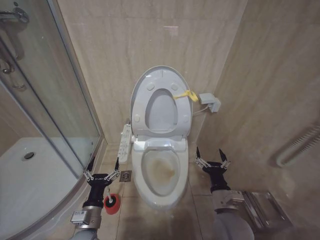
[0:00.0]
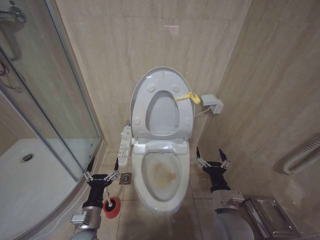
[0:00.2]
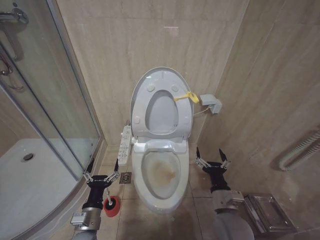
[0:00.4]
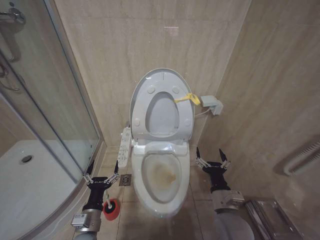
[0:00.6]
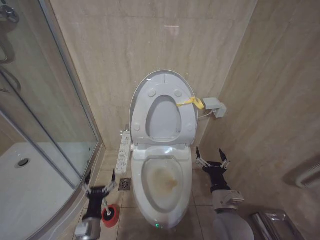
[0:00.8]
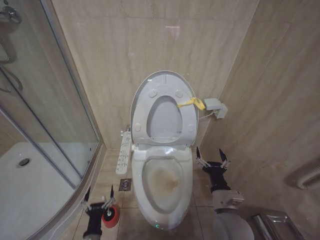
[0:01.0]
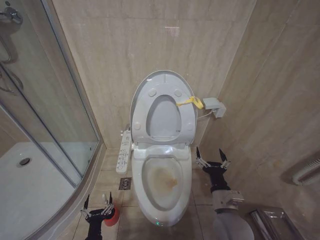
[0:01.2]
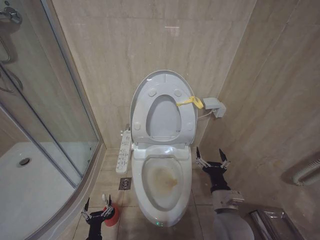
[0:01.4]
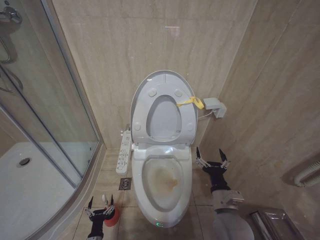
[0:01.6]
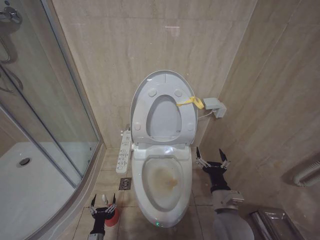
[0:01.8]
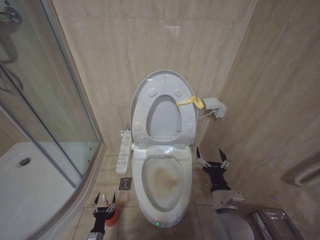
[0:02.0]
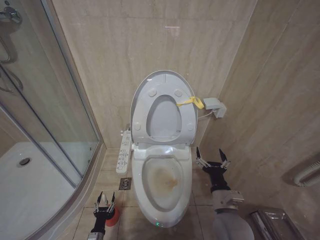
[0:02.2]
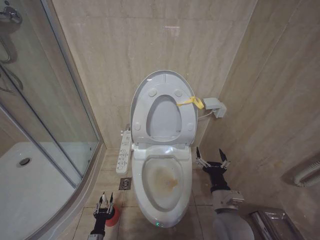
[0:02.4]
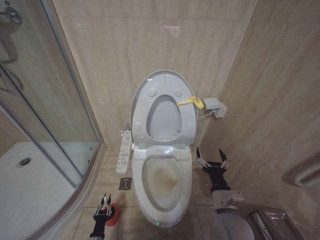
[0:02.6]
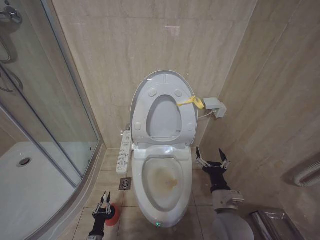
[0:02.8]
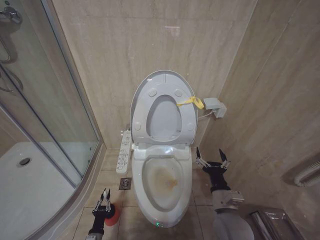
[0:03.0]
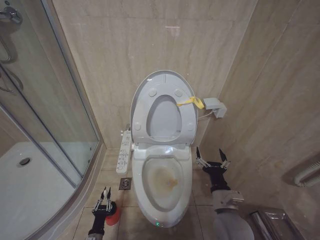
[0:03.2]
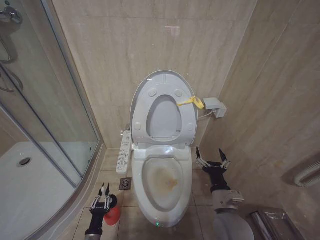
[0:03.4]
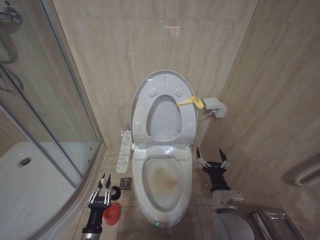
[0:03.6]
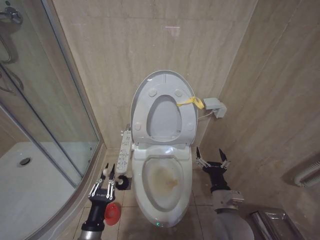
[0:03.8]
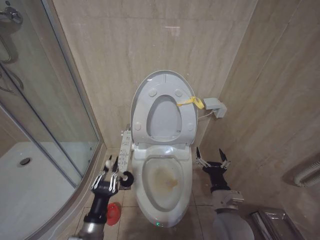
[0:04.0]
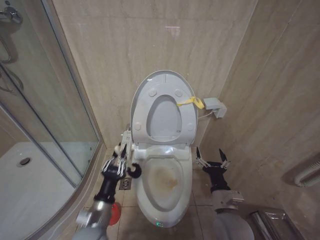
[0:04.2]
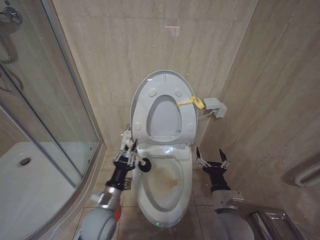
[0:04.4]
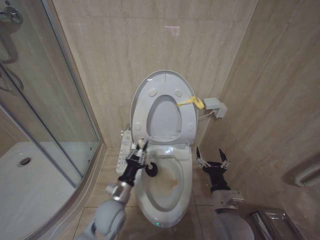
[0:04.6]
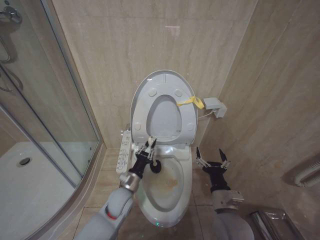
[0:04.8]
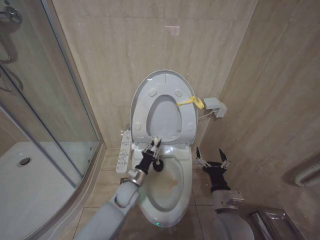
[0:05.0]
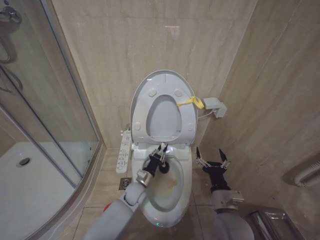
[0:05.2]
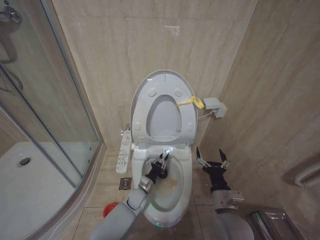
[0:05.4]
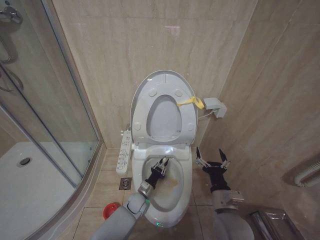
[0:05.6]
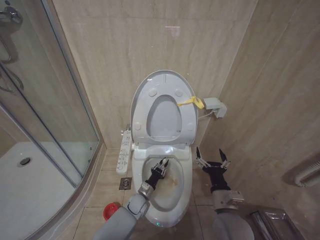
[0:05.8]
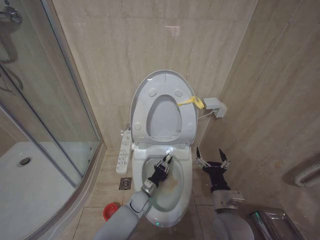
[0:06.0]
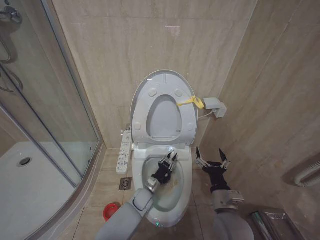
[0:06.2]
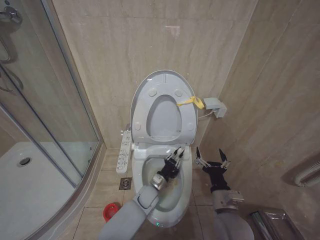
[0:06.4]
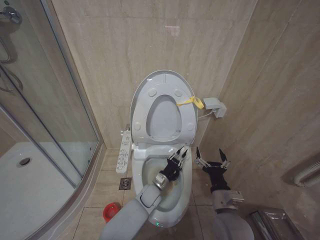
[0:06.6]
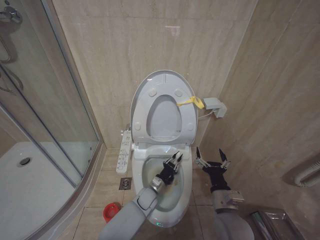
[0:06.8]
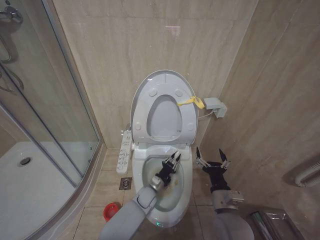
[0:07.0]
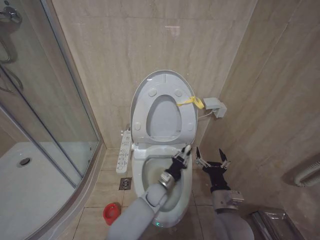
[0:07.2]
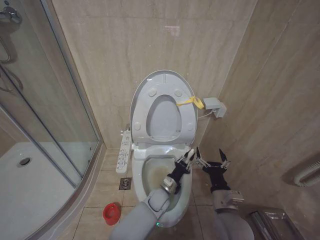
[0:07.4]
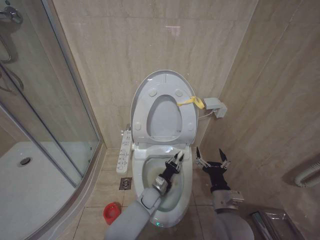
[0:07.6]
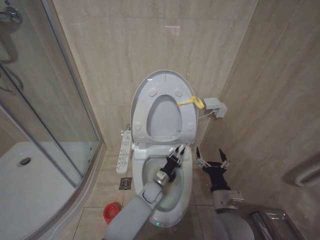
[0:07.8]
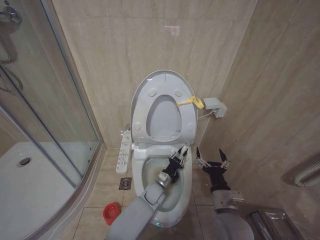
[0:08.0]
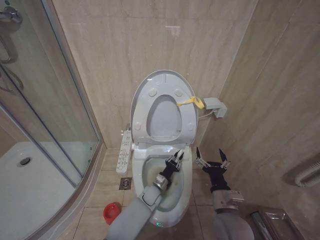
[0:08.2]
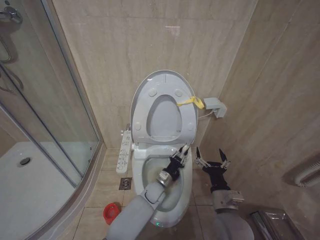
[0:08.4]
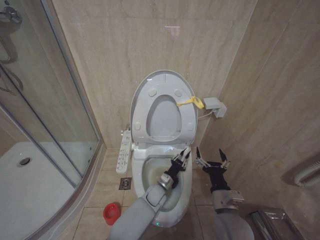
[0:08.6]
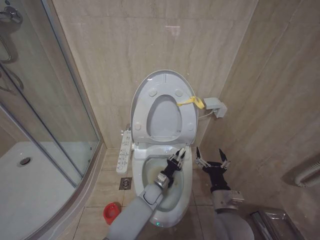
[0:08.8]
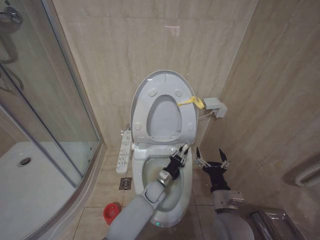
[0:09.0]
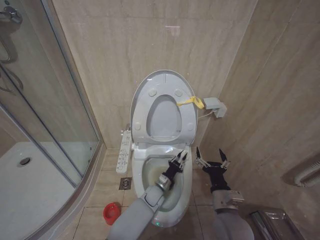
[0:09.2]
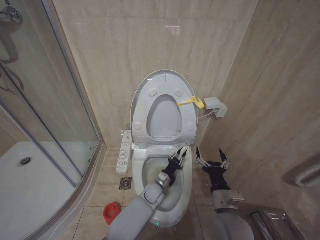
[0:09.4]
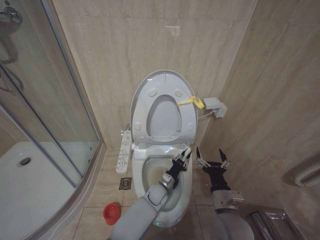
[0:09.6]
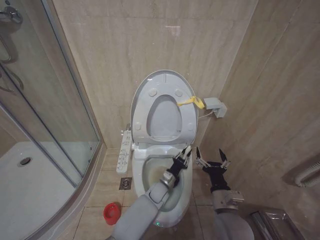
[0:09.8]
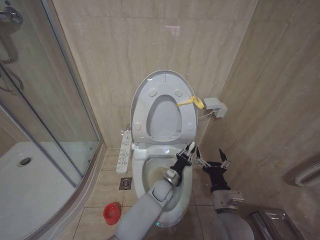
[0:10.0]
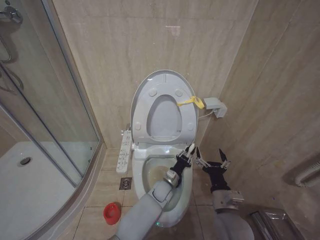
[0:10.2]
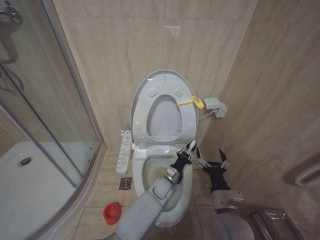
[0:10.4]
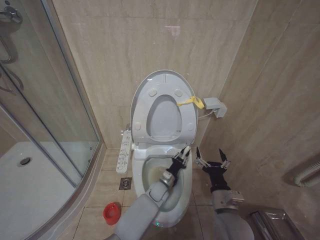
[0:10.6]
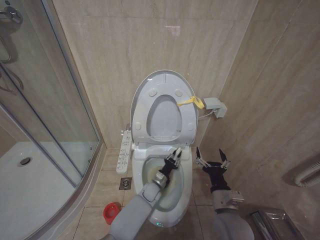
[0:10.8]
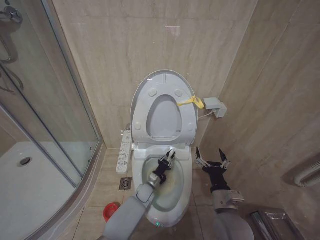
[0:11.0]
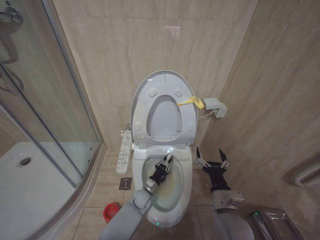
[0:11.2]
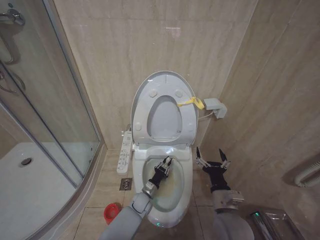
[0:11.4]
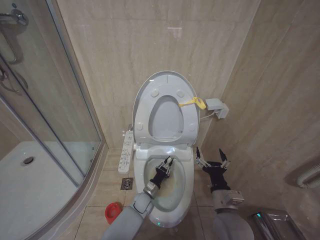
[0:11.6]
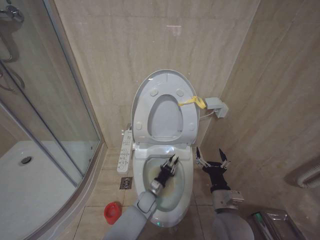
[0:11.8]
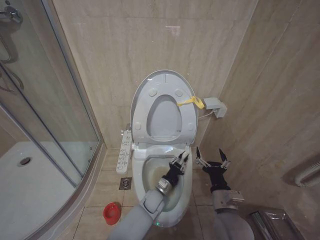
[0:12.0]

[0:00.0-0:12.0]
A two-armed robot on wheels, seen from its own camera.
Task of the whole recording: Open the toilet lid, clean the toilet bowl with a toilet brush, close the toilet lid, and flush.
0:00.0 to 0:01.6: The left gripper moves downward, some 25 cm.
0:03.0 to 0:04.4: The left gripper heads upward, covering about 30 cm.
0:04.4 to 0:06.0: The left gripper travels downward, forward and to the right by about 25 cm.
0:06.0 to 0:07.6: The left gripper moves to the right, some 5 cm.
0:07.6 to 0:09.0: There are only small adjustments of the grippers.
0:09.0 to 0:10.4: There are only small adjustments of the grippers.
0:10.4 to 0:12.0: The left gripper heads to the left, covering some 5 cm.

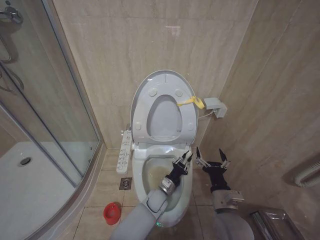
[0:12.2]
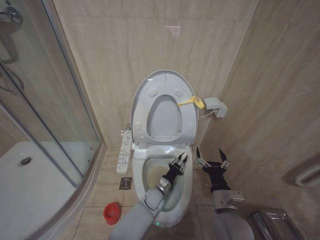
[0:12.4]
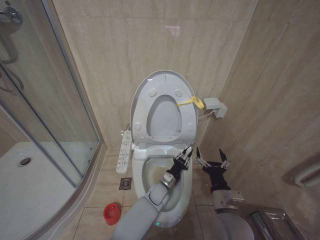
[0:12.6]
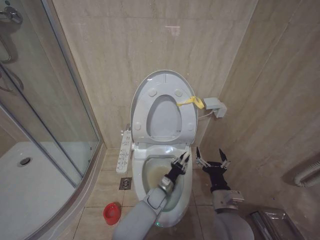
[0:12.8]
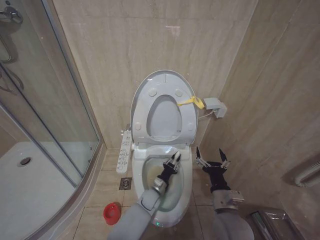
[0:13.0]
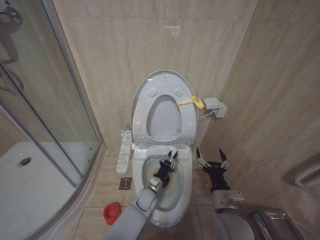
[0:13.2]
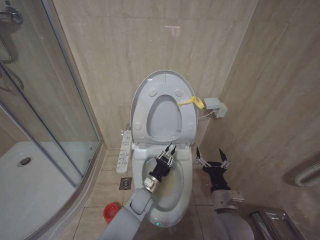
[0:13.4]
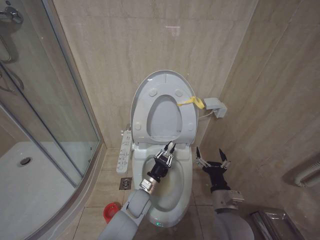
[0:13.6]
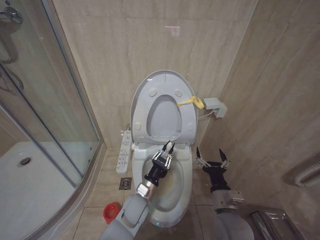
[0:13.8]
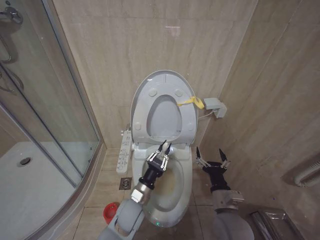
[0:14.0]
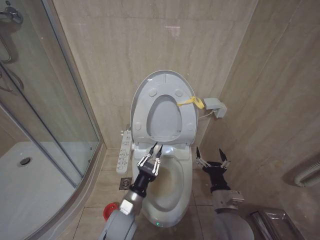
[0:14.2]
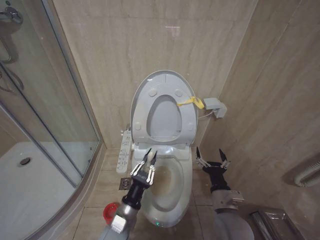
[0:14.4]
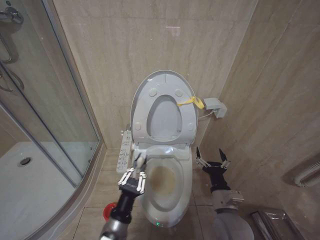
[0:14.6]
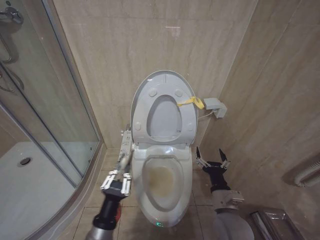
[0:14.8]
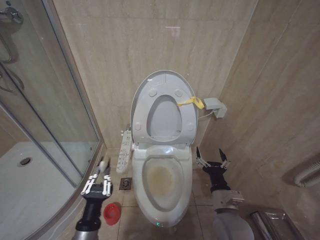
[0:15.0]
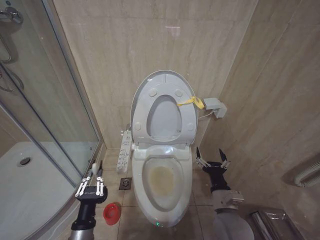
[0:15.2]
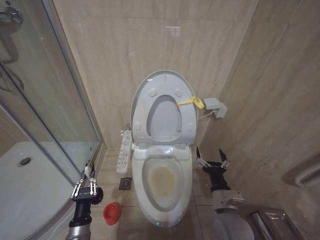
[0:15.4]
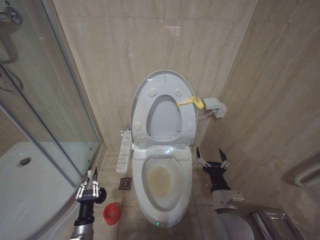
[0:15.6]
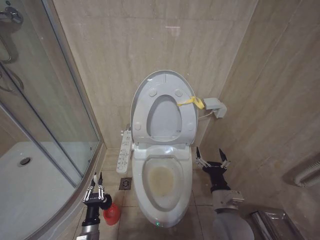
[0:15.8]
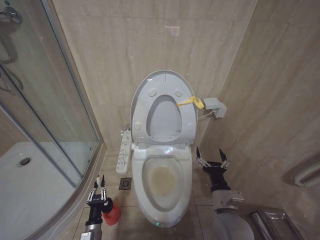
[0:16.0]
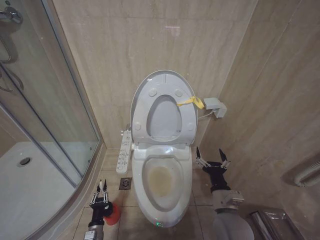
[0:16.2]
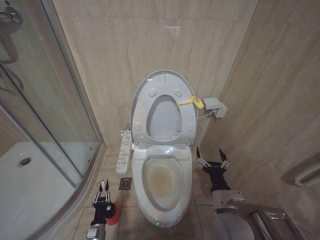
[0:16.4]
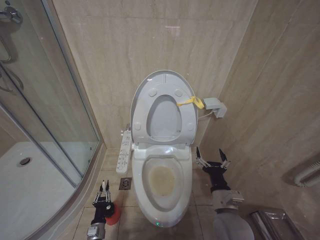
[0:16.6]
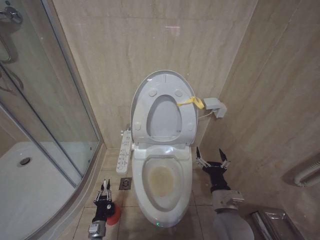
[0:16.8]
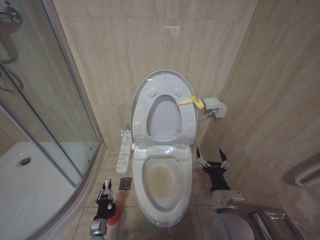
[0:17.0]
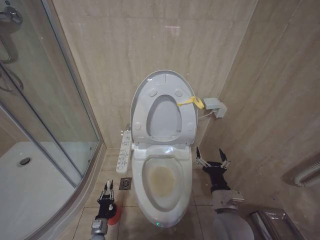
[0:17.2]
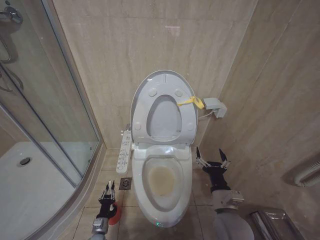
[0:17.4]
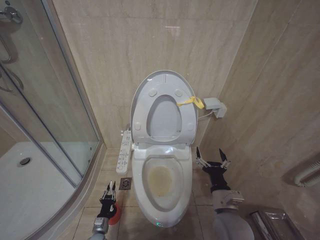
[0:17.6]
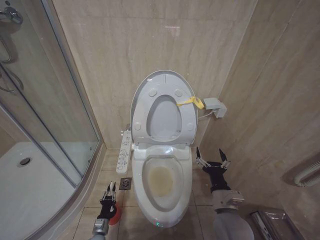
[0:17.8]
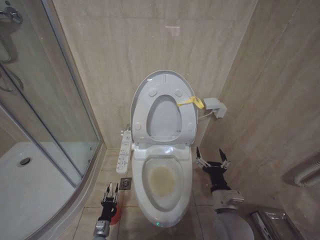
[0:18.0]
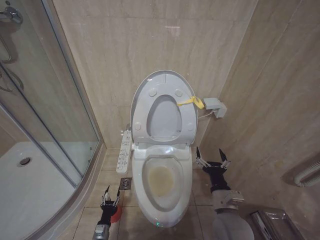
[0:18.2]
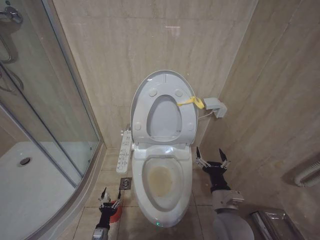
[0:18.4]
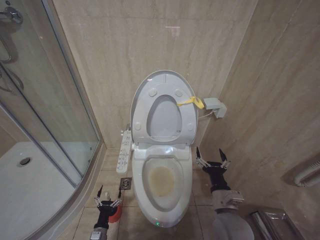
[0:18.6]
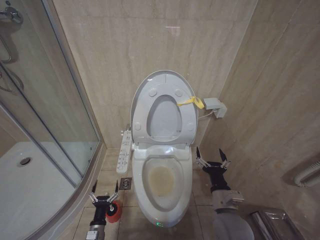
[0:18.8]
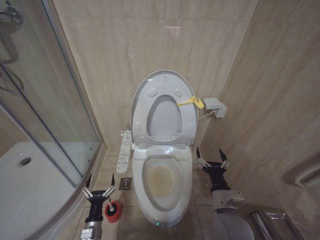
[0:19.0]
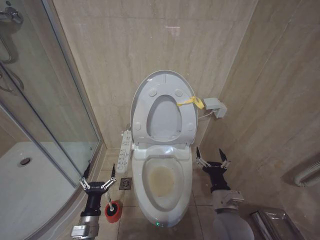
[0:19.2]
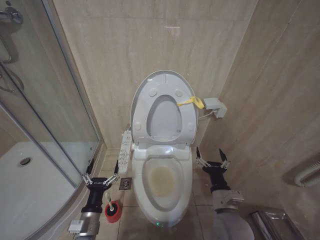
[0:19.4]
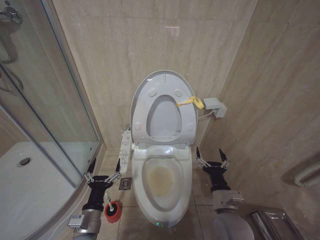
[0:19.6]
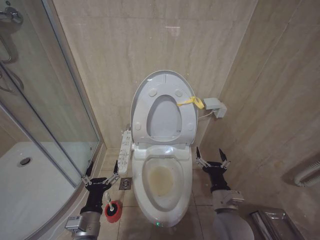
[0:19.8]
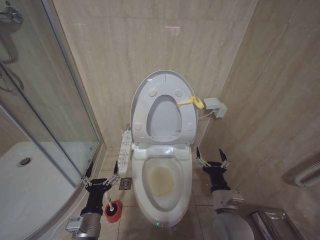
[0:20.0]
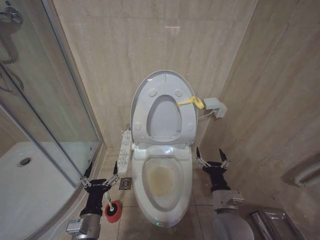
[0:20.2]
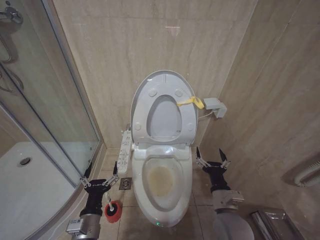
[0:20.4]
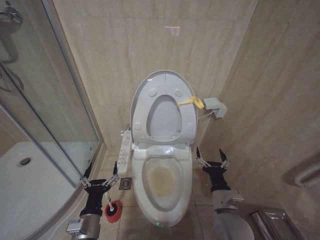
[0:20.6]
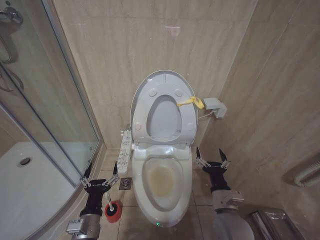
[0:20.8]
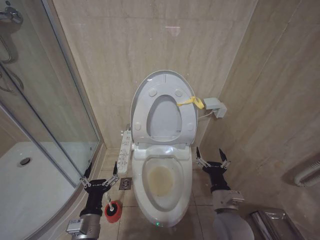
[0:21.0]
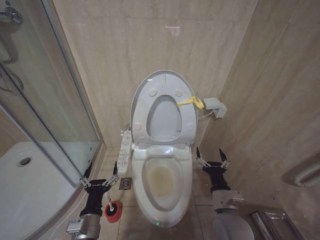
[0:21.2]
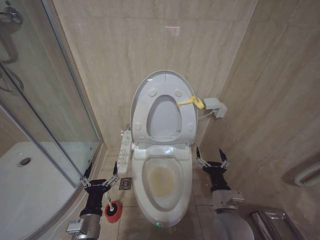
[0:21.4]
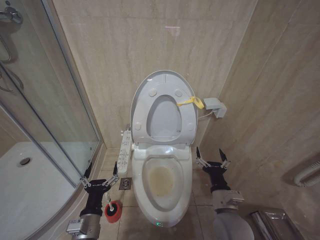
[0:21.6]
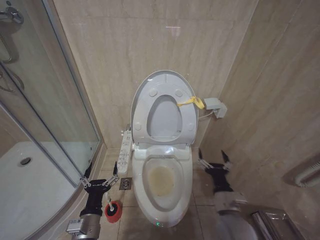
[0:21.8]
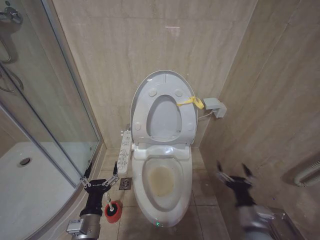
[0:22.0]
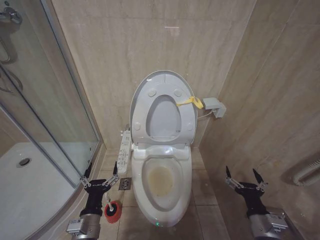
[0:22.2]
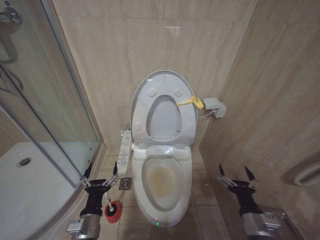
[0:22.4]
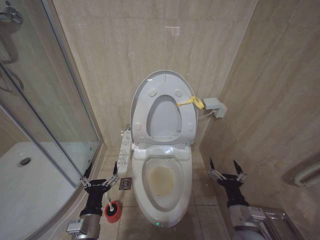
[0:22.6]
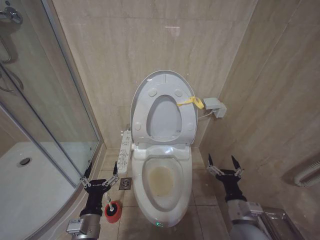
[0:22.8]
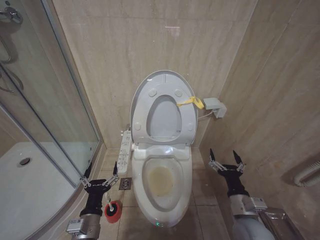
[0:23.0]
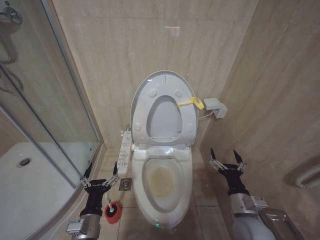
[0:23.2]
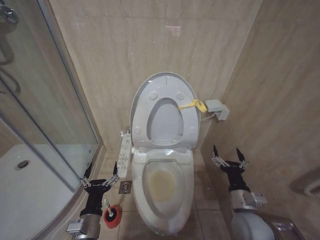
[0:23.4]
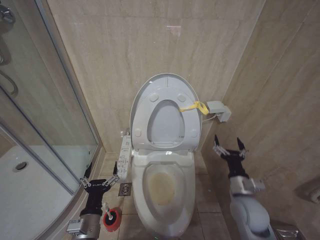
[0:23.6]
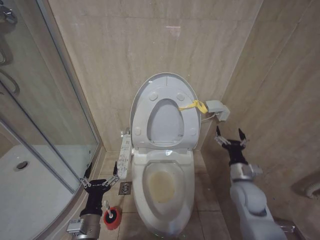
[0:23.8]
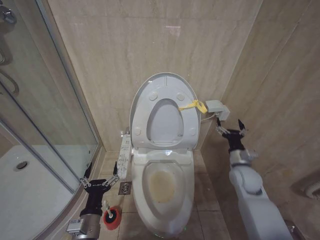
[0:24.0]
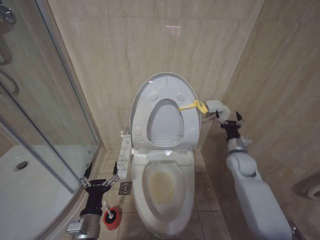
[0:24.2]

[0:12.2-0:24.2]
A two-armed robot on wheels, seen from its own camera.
Task of the whole recording: Open the toilet lid, clean the toilet bowl with a toilet brush, close the toilet lid, and flush.
0:12.2 to 0:13.8: The left gripper moves to the left and upward, about 10 cm.
0:13.8 to 0:15.2: The left gripper travels backward and to the left by about 25 cm.
0:15.2 to 0:16.6: The left gripper moves downward, some 25 cm.
0:16.6 to 0:18.2: The left gripper heads downward, covering some 5 cm.
0:18.2 to 0:19.8: The left gripper goes about 30 cm upward, and opens.
0:19.8 to 0:21.2: Both grippers stay put.
0:21.2 to 0:22.6: The right gripper moves to the right, some 5 cm.
0:22.6 to 0:24.2: The right gripper goes approximately 25 cm forward.
